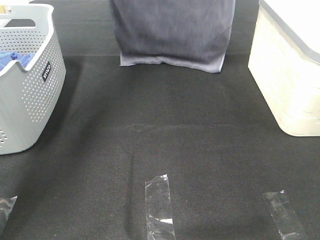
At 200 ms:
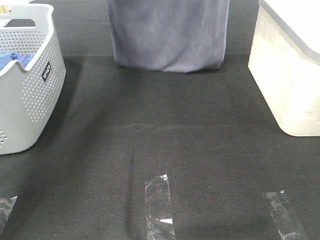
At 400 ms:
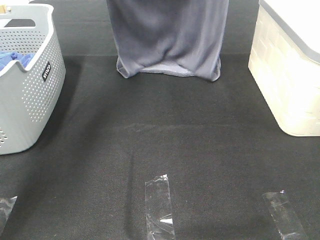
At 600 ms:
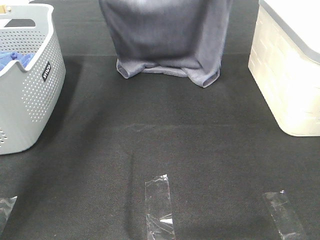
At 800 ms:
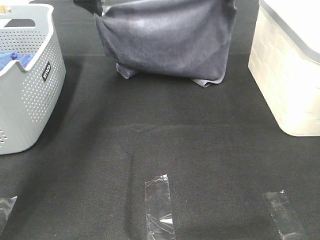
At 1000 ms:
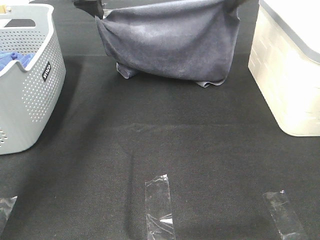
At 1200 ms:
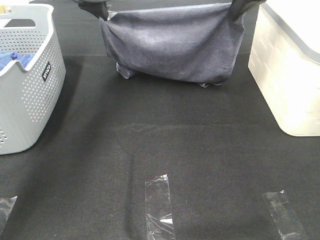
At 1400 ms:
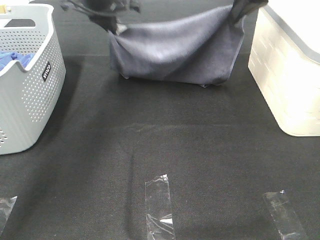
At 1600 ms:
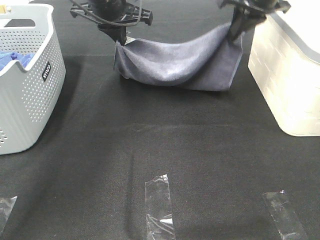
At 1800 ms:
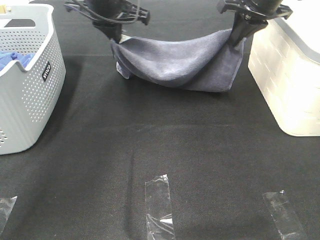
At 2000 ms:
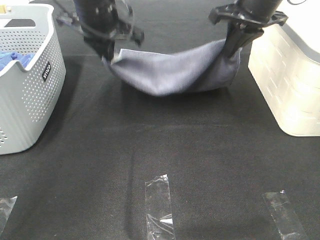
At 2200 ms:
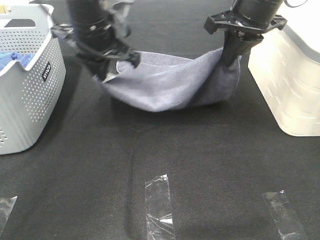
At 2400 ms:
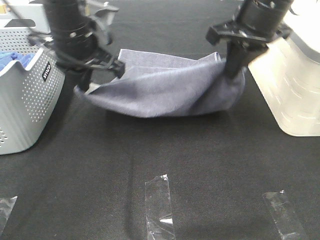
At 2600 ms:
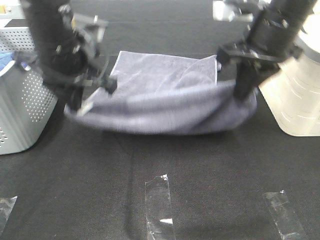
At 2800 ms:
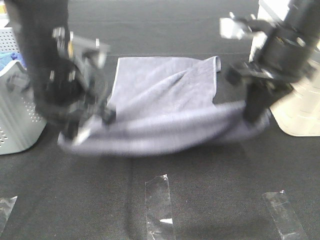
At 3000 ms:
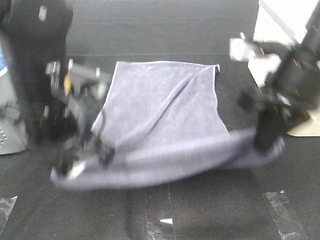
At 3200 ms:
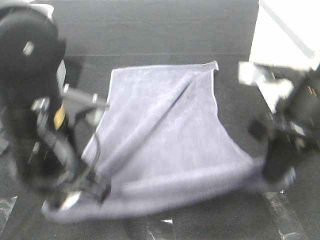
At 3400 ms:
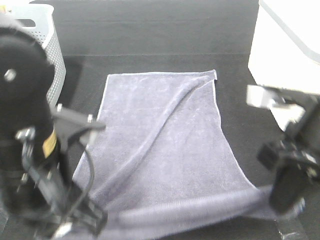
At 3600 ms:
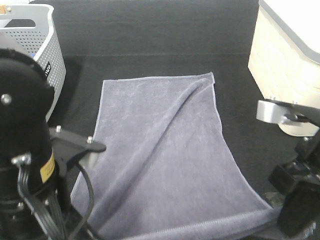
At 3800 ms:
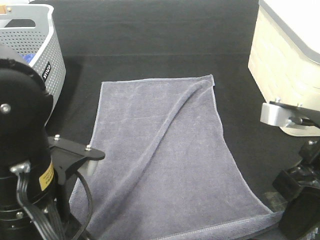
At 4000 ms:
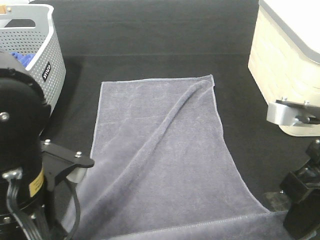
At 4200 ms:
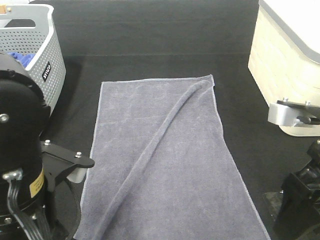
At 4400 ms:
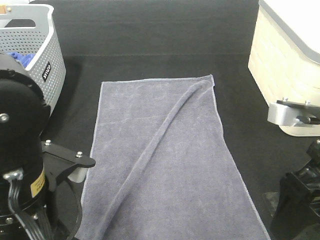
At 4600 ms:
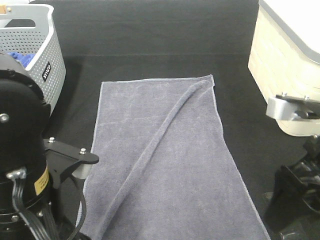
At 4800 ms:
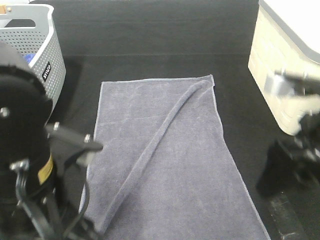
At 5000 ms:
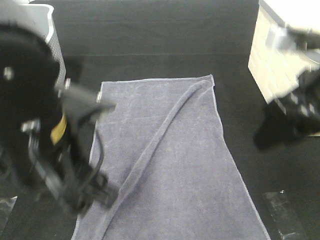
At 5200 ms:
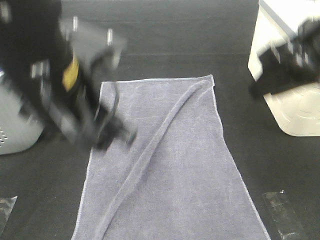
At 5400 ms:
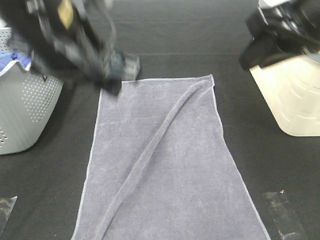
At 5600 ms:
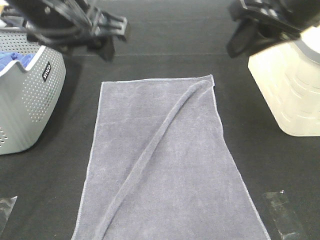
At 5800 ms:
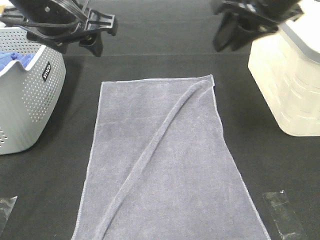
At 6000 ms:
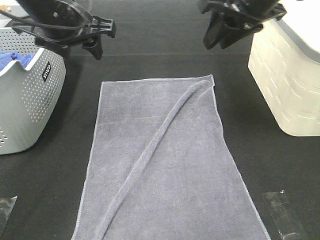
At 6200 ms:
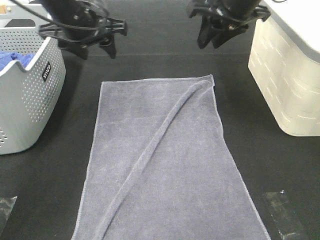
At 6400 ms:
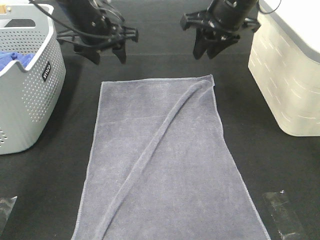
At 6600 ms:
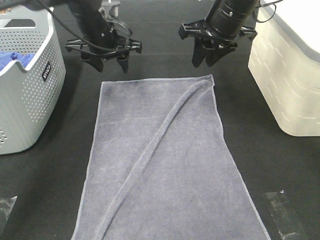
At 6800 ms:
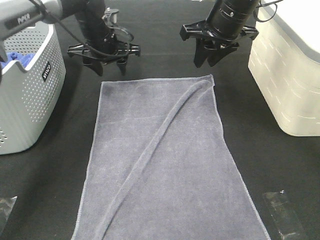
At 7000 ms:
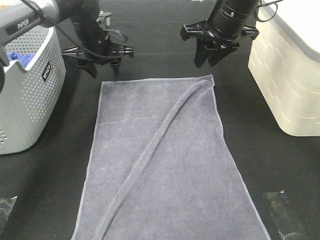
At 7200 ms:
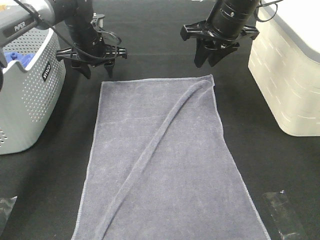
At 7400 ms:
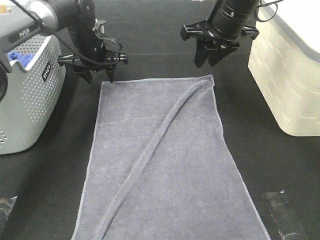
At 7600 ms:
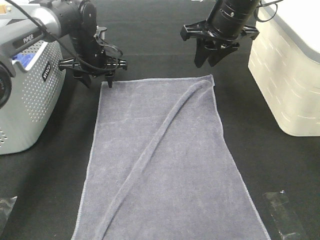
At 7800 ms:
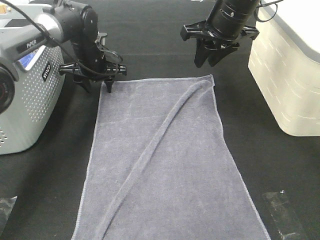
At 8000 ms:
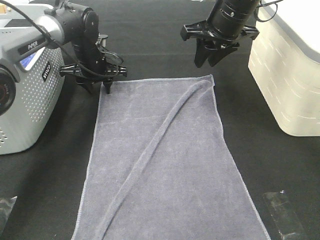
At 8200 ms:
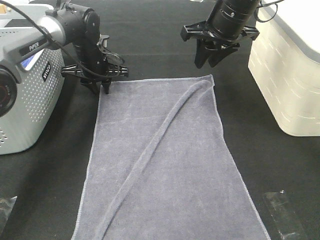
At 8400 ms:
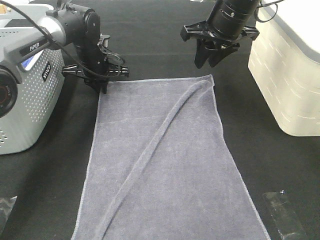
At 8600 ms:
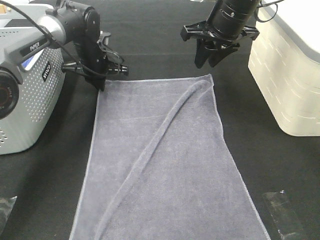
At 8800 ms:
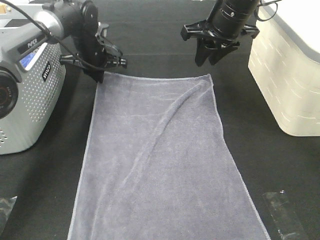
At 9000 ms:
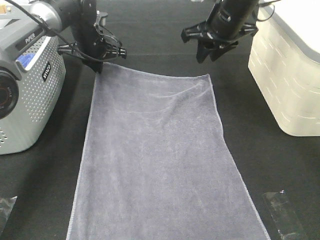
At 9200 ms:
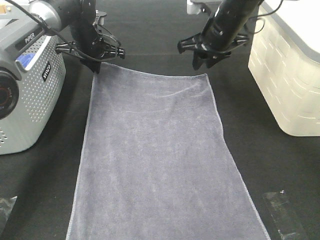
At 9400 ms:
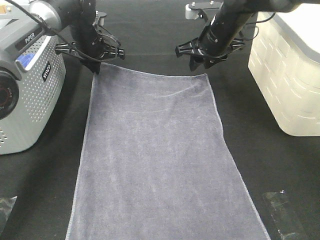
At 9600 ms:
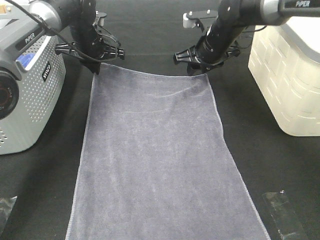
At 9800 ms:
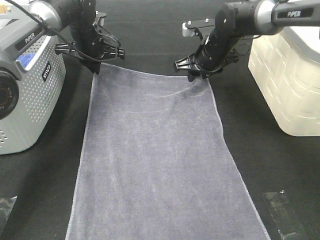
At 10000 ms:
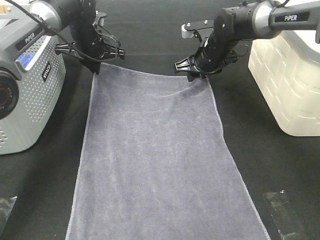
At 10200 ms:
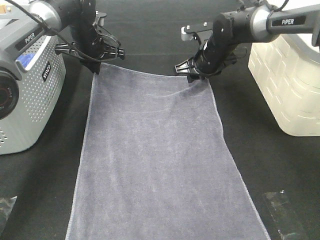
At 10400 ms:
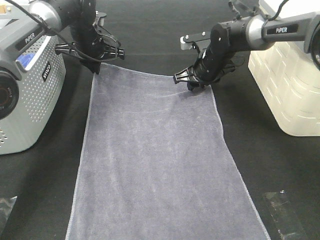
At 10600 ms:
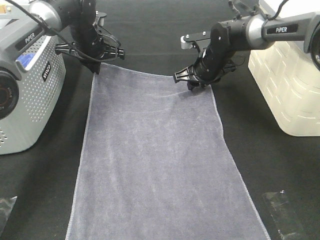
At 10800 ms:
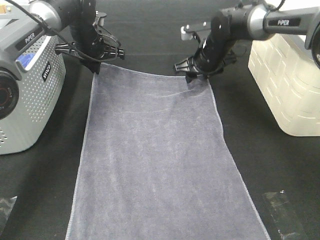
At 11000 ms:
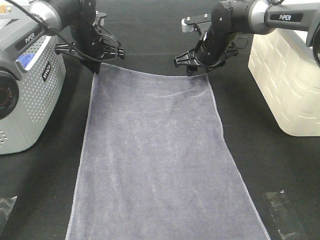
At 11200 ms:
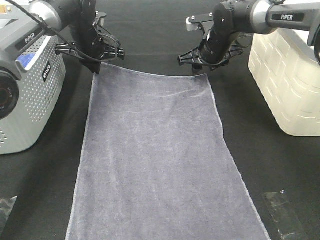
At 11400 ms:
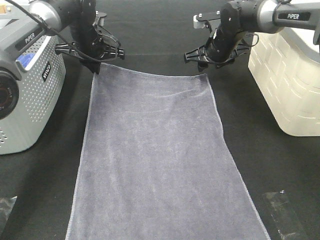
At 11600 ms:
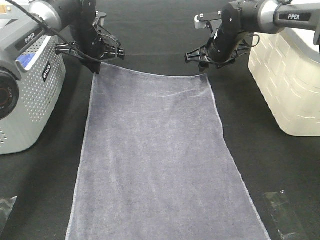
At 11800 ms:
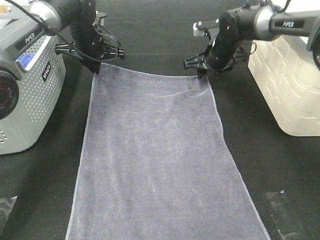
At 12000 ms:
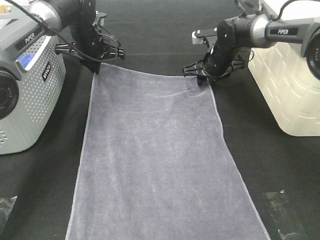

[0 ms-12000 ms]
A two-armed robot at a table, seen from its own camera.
Task of the whole recording: Remove the towel and place it.
Step, 200 ms to 9200 ms: Left hand:adjust the gray towel.
Step, 200 ms to 9200 ms: Right hand:adjust the gray towel.
0 ms to 1600 ms: The left gripper moves downward and to the right, some 15 cm; the right gripper travels downward by some 15 cm.
1600 ms to 3000 ms: The two grippers go roughly 25 cm backward.
3000 ms to 4400 ms: The grippers both shift backward by approximately 10 cm. The right gripper opens up. Meanwhile the left gripper opens its fingers.
4400 ms to 6000 ms: The left gripper goes roughly 25 cm forward. Meanwhile the right gripper moves forward and upward, approximately 25 cm, and closes up.
6000 ms to 7600 ms: The left gripper is displaced forward and downward by approximately 20 cm, while the right gripper travels forward and downward by roughly 10 cm.
7600 ms to 9000 ms: The left gripper closes its fingers.
9000 ms to 10400 ms: The right gripper moves downward, about 15 cm.
10400 ms to 12000 ms: The grippers move only a little.

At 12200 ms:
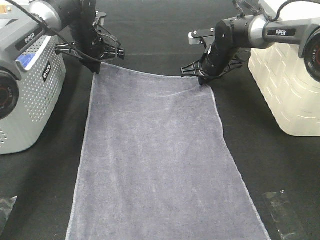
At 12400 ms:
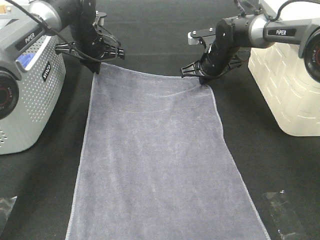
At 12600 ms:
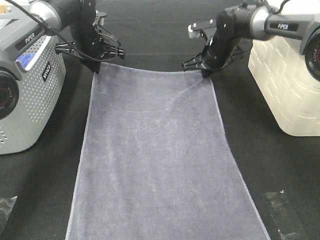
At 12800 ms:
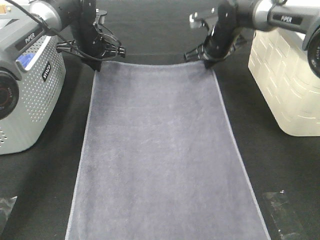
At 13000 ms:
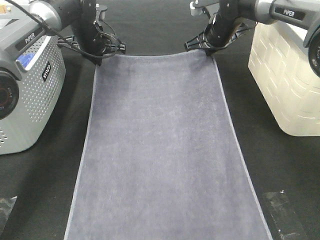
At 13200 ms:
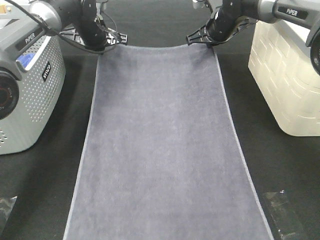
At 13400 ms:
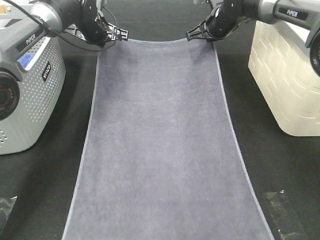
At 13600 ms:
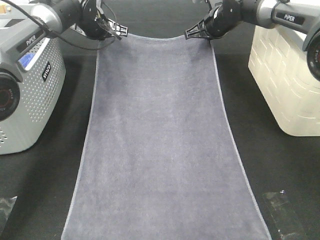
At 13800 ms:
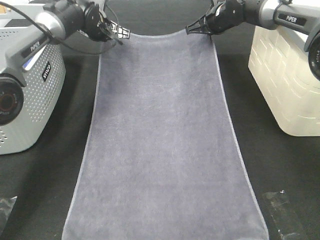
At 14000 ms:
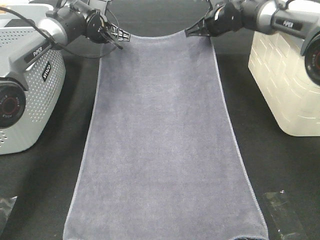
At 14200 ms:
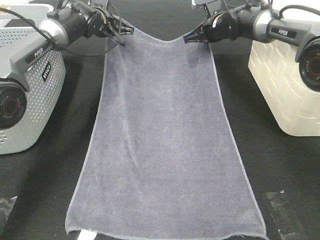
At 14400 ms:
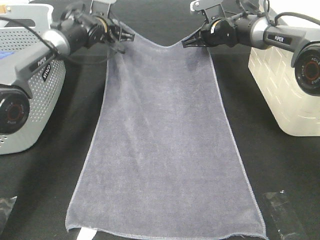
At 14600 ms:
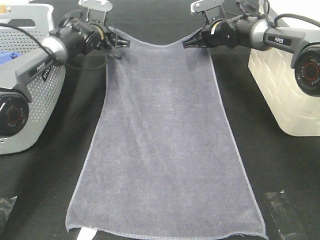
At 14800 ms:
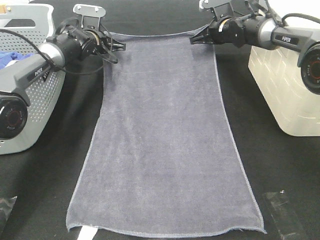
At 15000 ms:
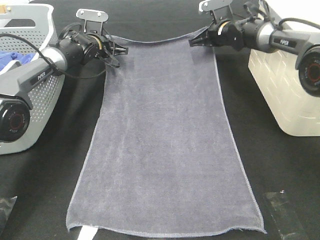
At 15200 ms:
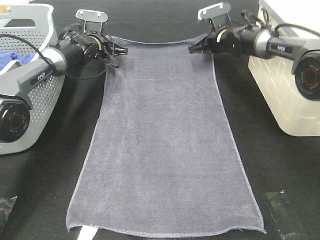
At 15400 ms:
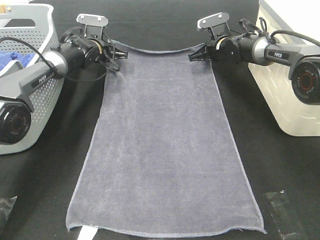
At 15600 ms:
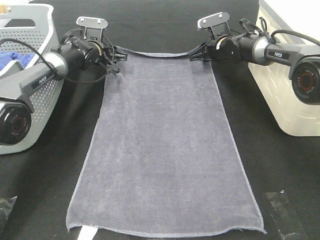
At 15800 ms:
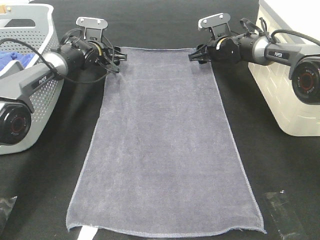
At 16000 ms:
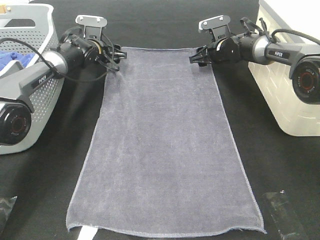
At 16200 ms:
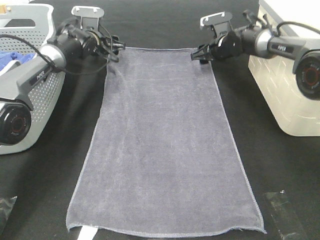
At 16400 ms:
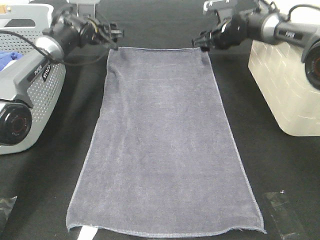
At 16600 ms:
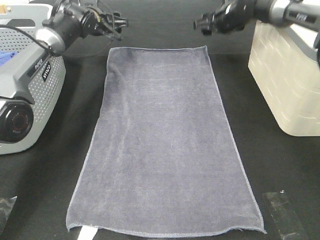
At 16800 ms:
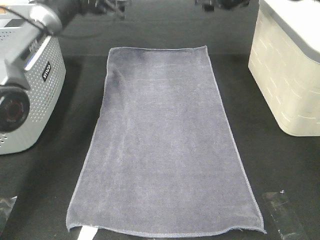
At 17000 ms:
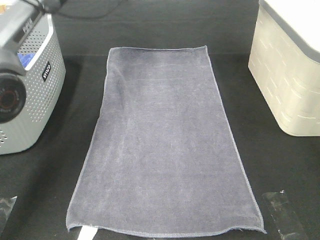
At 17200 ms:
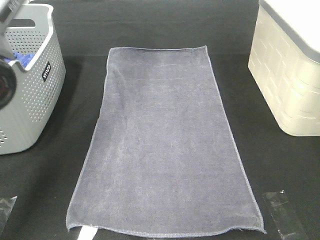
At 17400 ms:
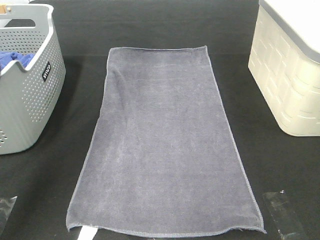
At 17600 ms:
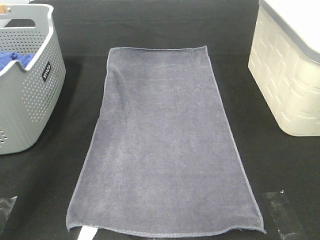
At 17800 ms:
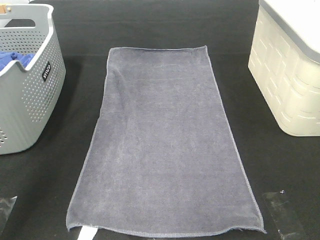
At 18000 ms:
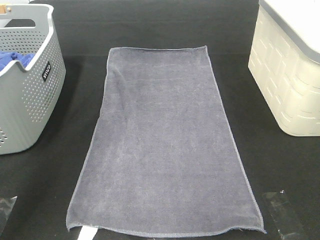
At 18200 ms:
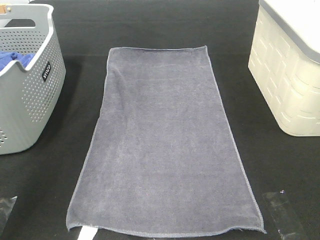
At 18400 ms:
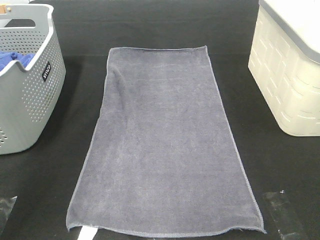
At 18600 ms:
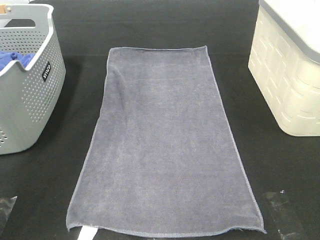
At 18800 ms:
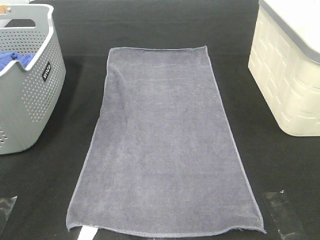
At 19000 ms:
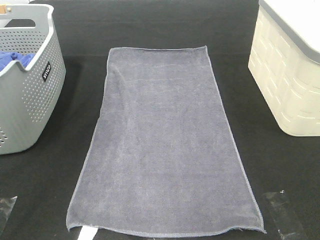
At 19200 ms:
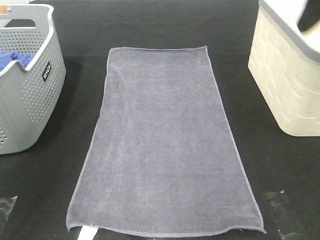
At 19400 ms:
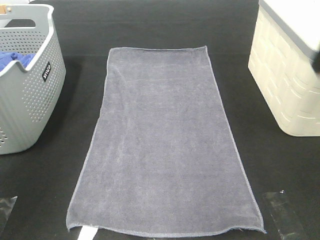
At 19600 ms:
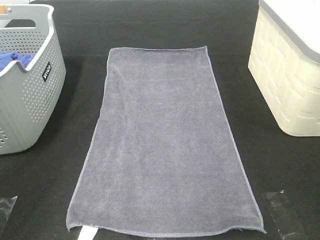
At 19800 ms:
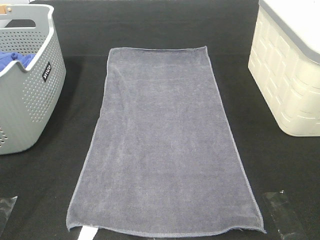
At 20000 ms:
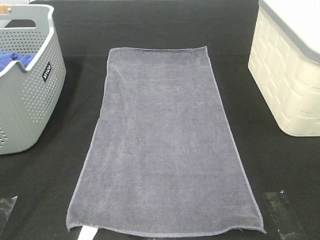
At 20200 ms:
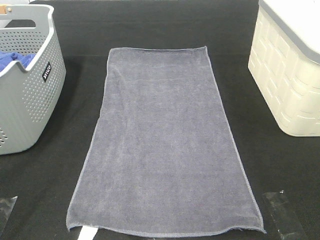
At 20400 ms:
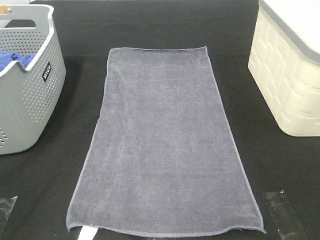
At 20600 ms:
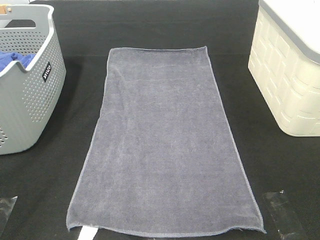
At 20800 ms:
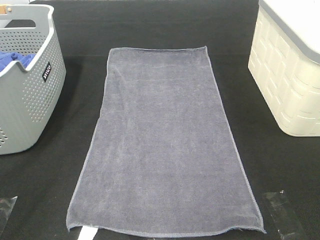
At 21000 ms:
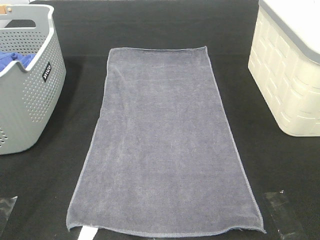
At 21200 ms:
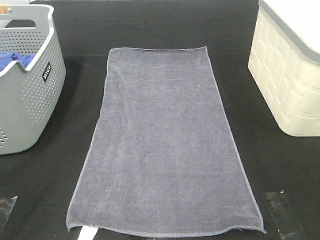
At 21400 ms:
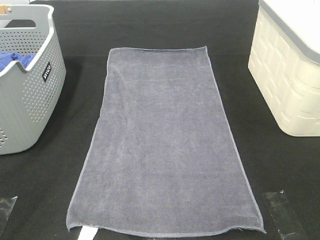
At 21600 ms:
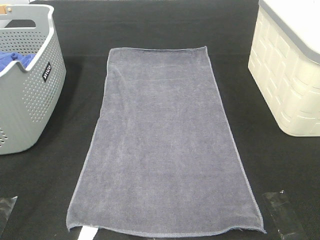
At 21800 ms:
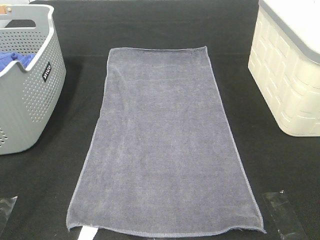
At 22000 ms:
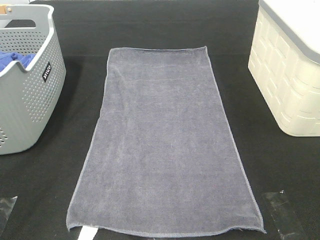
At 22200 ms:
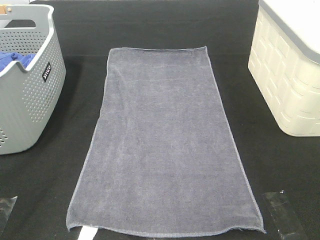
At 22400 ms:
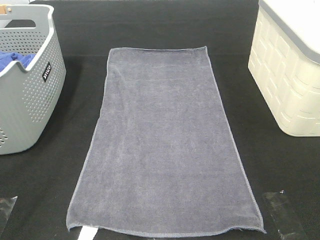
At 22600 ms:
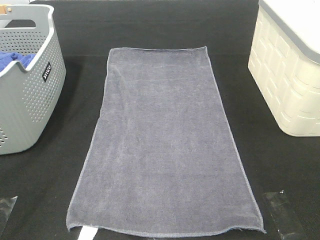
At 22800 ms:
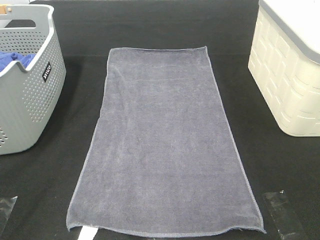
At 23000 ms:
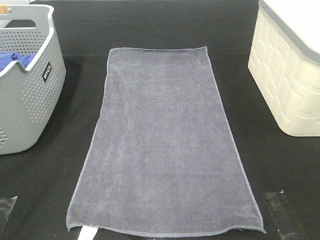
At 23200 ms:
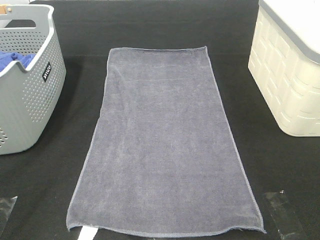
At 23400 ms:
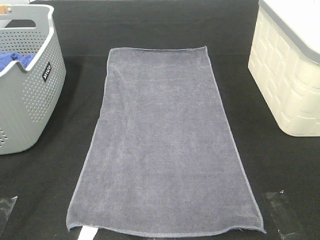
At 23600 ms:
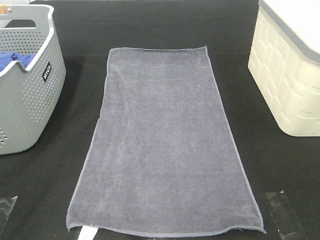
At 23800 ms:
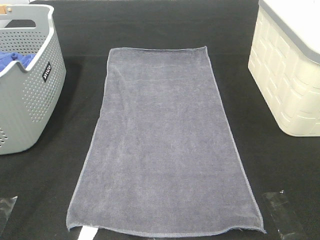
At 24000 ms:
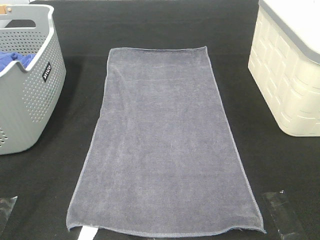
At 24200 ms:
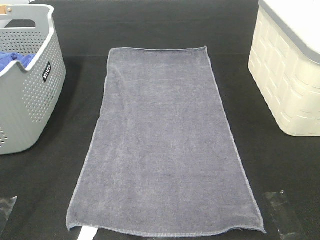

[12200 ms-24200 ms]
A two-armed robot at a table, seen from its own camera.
Task of the whole recording: Remove the towel and place it.
12200 ms to 13800 ms: The right gripper heads upward, covering some 10 cm.
13800 ms to 15200 ms: Both grippers move downward, about 10 cm.
15200 ms to 16600 ms: The grippers both shift upward by some 10 cm. The right gripper opens. The left gripper opens.
16600 ms to 18200 ms: The grippers both shift upward and backward by about 30 cm.
18200 ms to 19800 ms: The left gripper moves backward and to the left, approximately 50 cm.
